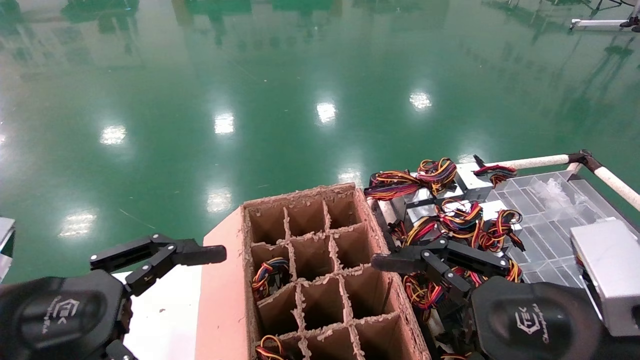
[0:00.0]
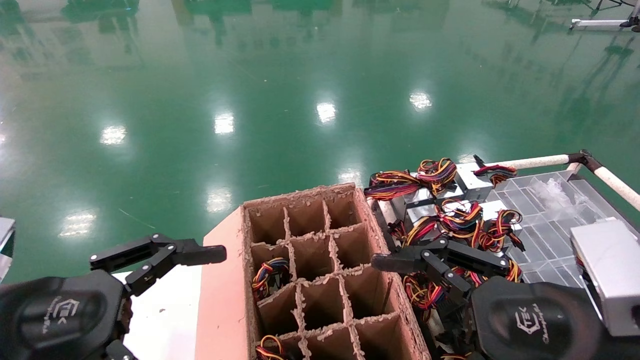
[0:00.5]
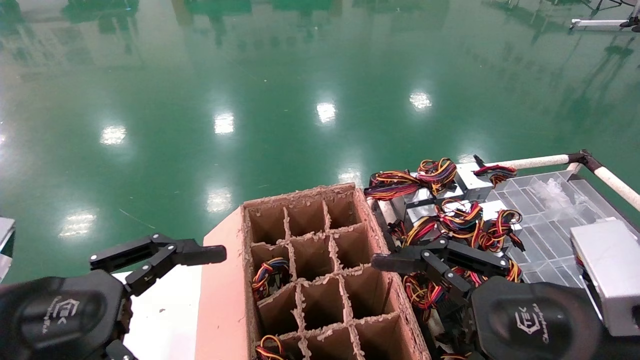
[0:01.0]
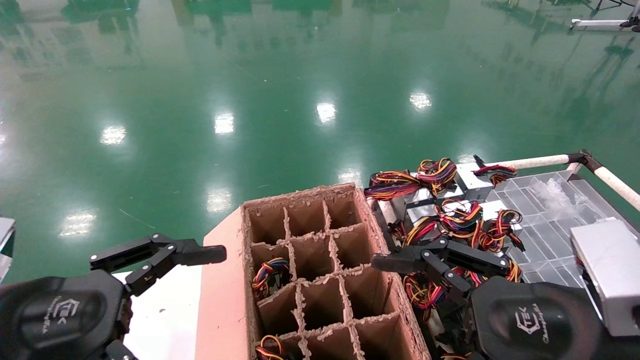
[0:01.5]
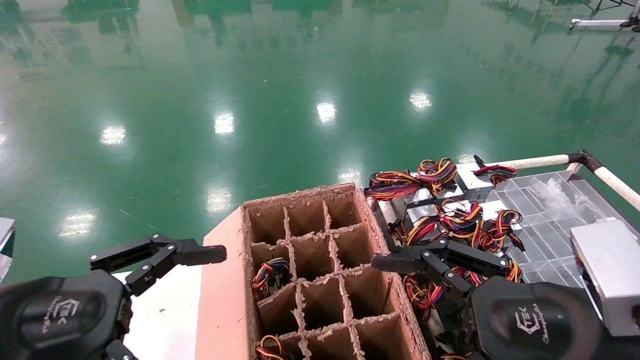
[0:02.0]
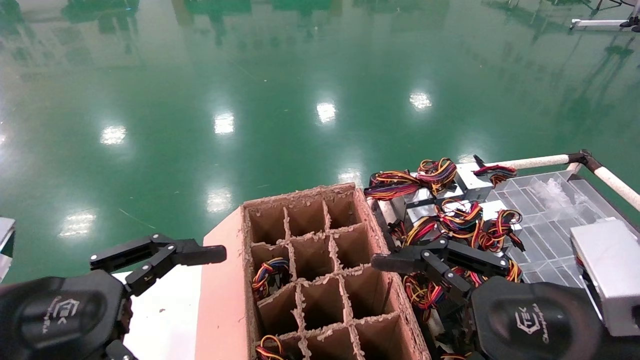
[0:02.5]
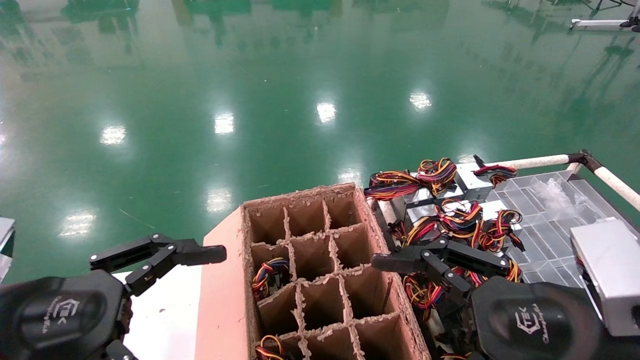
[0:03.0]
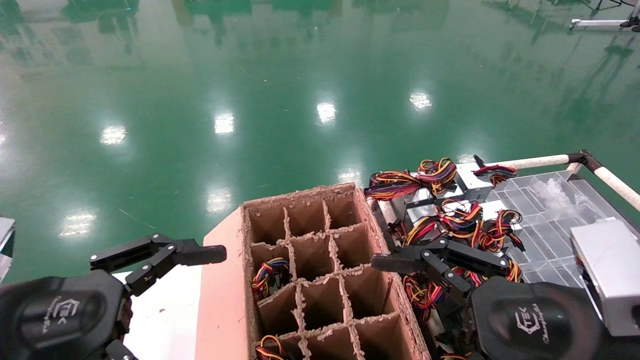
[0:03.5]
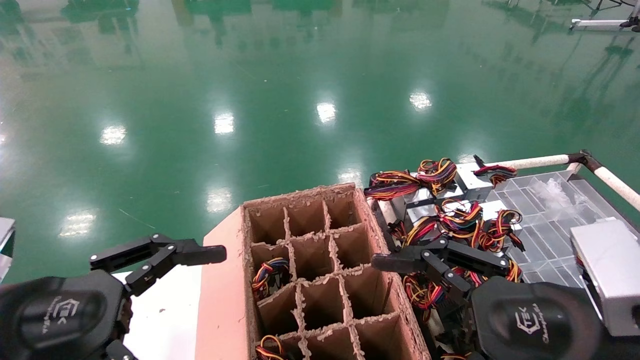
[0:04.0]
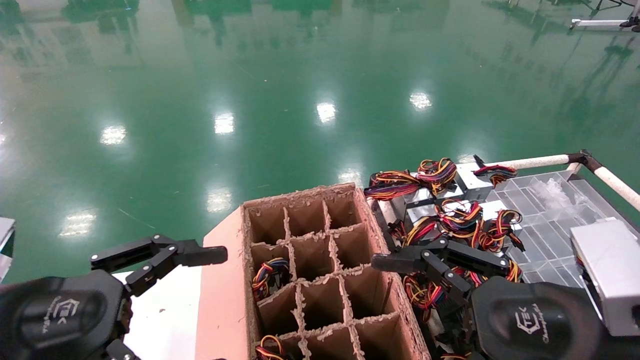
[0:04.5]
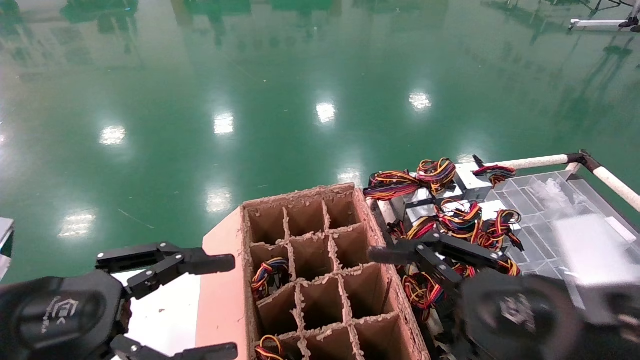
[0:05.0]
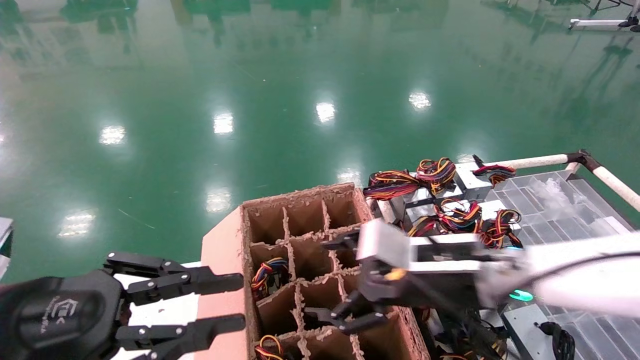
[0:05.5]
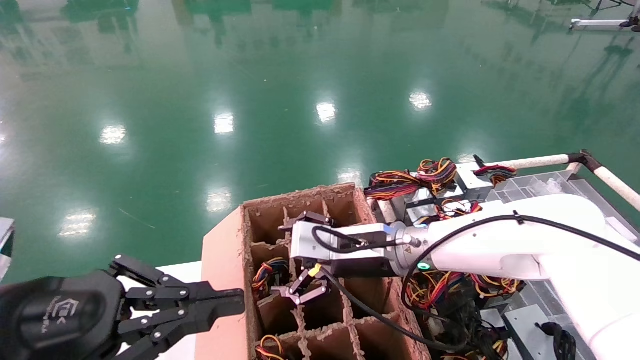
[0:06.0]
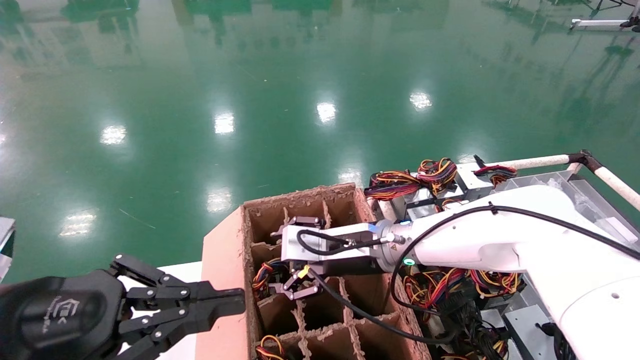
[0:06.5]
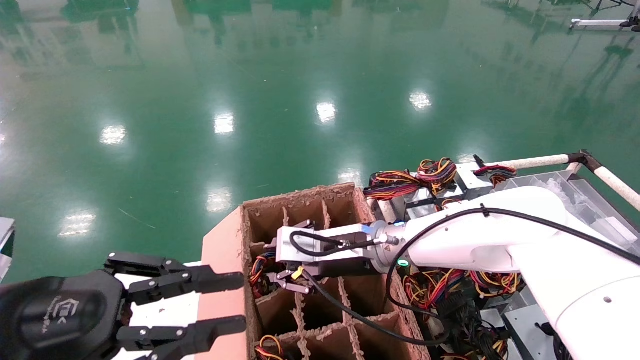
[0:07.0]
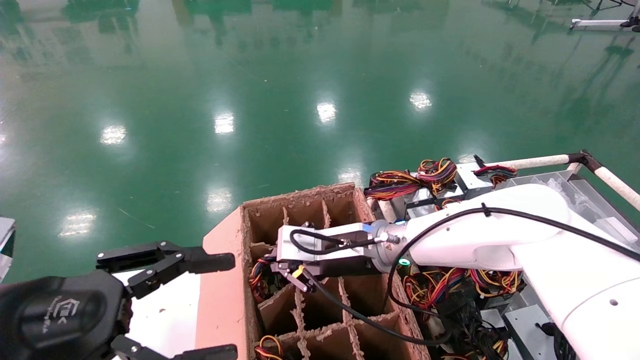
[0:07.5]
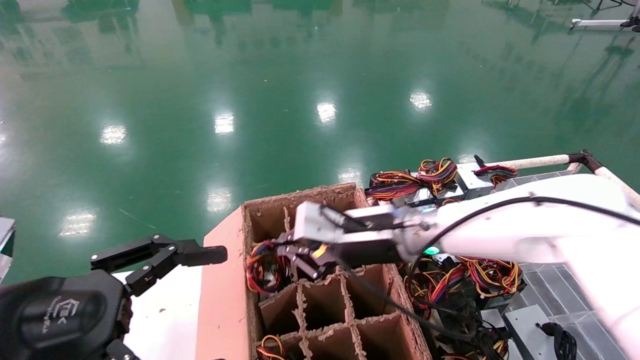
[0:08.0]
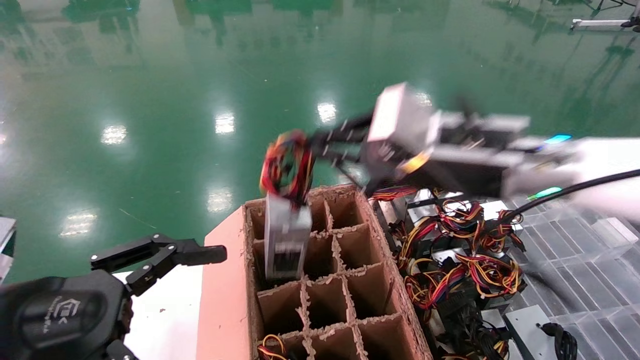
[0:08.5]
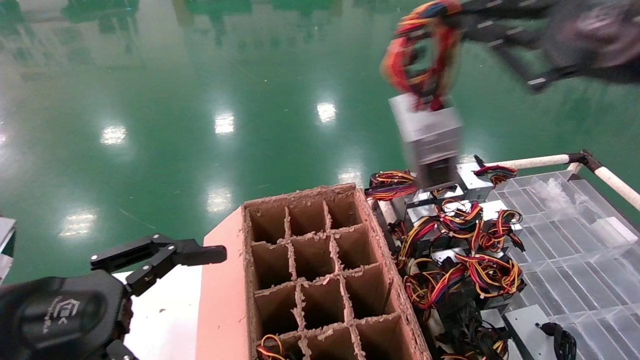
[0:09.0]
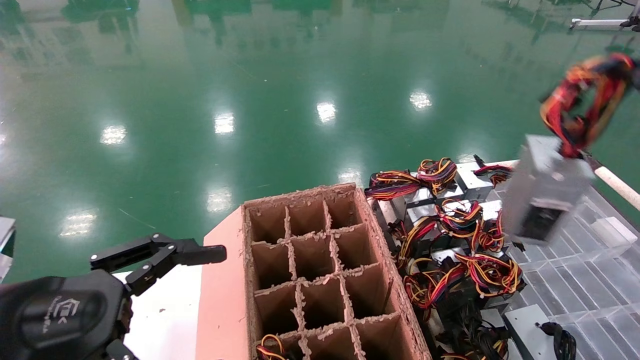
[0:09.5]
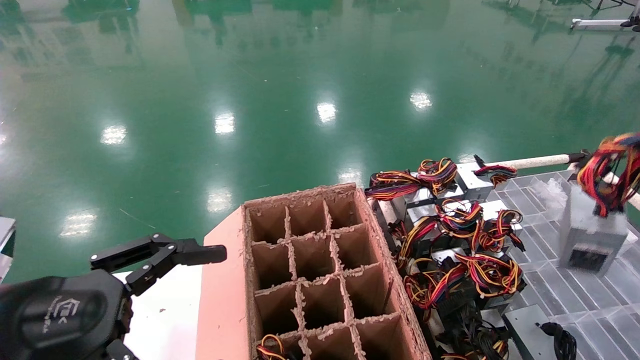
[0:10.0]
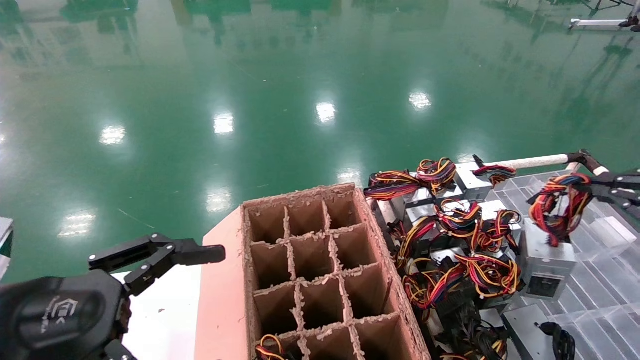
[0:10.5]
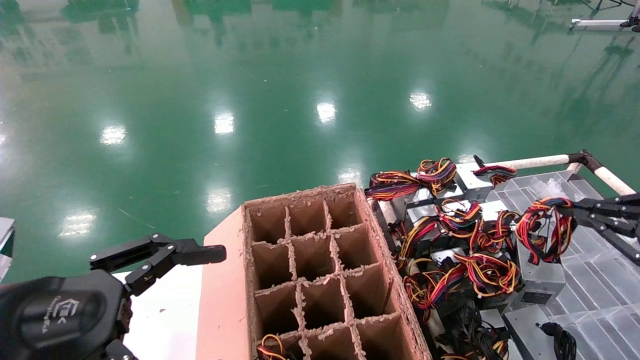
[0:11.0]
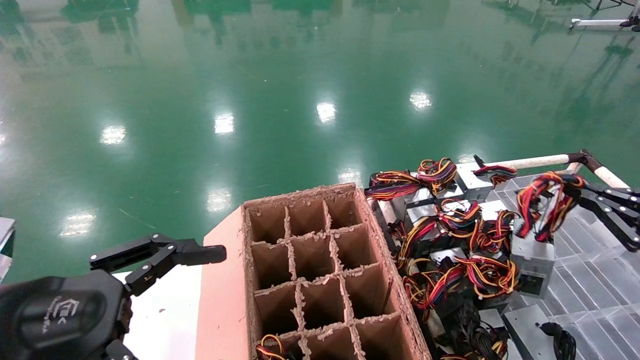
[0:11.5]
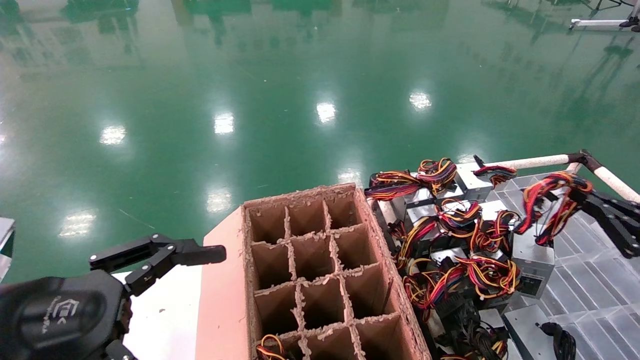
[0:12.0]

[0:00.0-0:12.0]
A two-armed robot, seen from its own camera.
Step, 0:06.0 to 0:08.0: Grab and lift the power supply from the large box.
0:00.0 to 0:04.0: Both grippers stay about where they are.
0:04.0 to 0:06.0: The right gripper heads forward and to the left, covering approximately 25 cm. The left gripper closes.
0:06.0 to 0:08.0: The left gripper opens up. The right gripper closes up.
0:08.0 to 0:10.0: The right gripper is displaced to the right and backward by about 40 cm.
0:10.0 to 0:12.0: The right gripper heads downward and forward, covering some 20 cm.

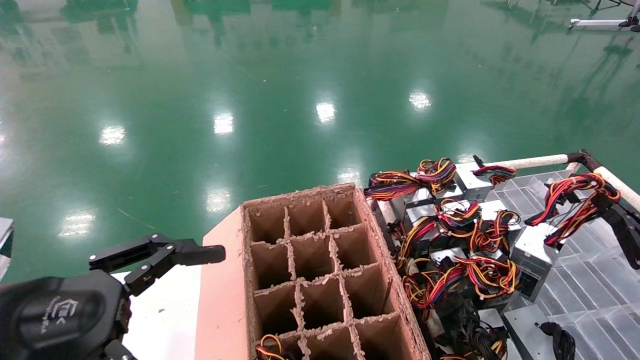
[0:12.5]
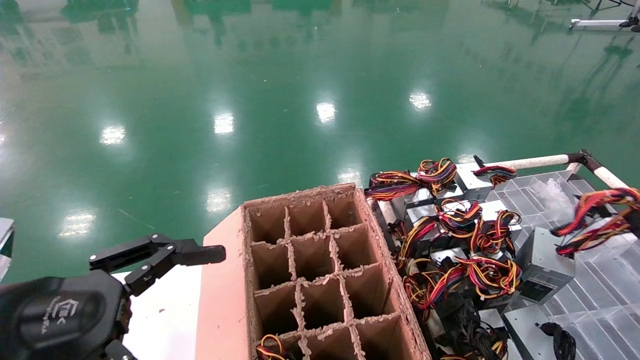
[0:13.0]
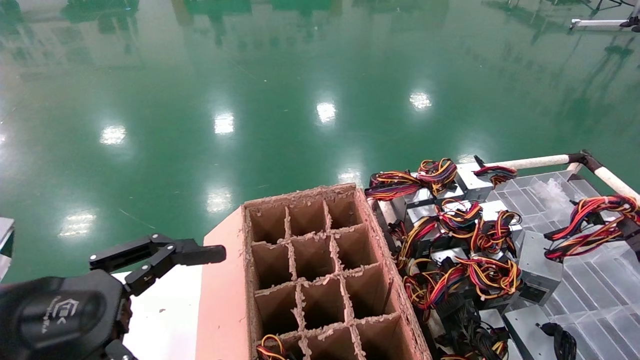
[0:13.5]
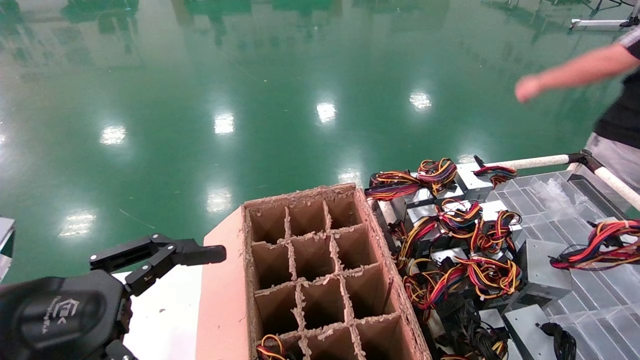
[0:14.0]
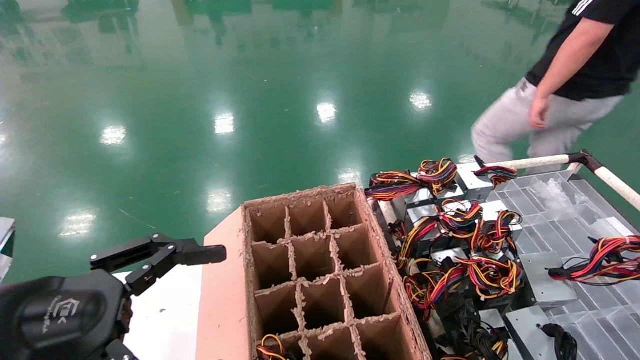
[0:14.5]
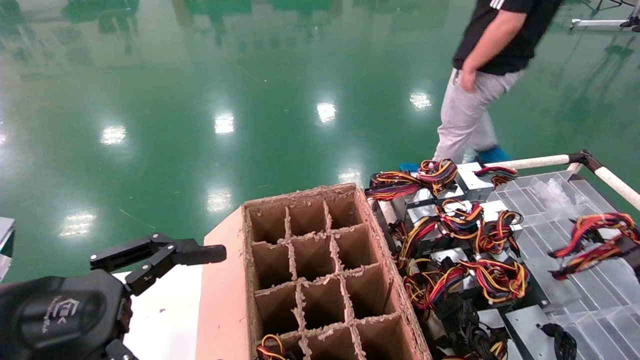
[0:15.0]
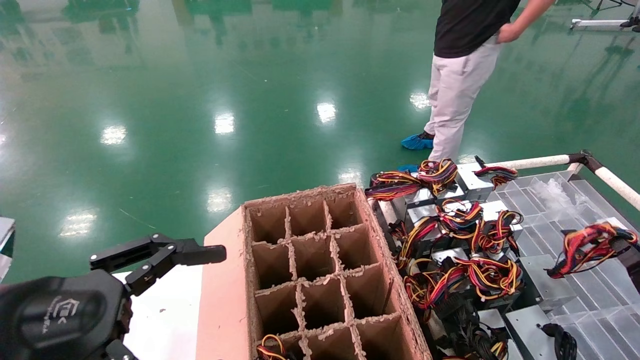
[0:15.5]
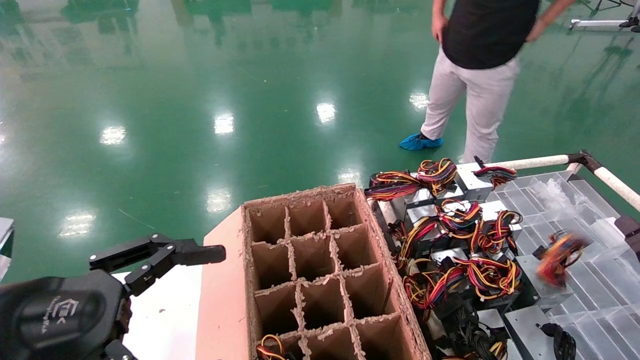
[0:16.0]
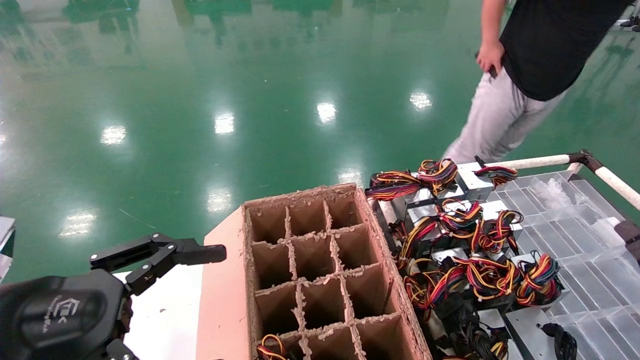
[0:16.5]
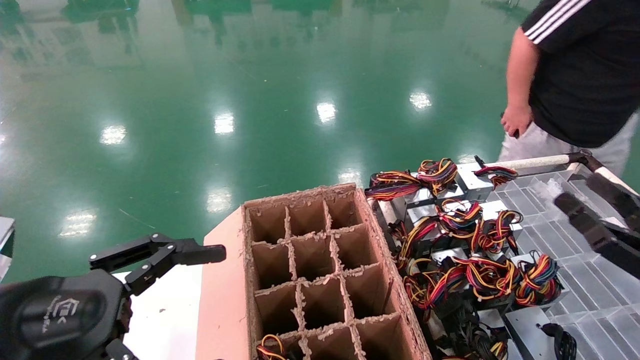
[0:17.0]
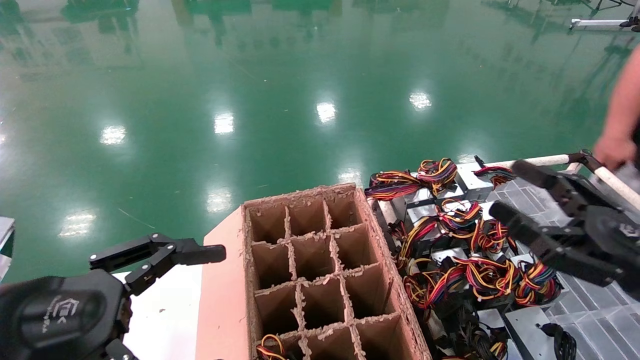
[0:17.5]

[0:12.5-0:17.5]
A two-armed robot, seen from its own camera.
Step, 0:12.5 to 0:15.5: Place the power supply on the operating table.
0:12.5 to 0:15.0: The right gripper heads downward, covering about 10 cm.
0:15.0 to 0:17.5: The right gripper heads upward and to the left, covering roughly 20 cm, and opens its fingers.
